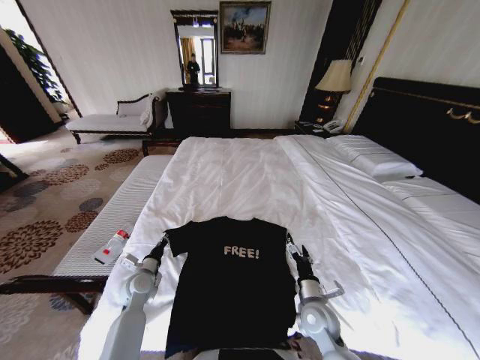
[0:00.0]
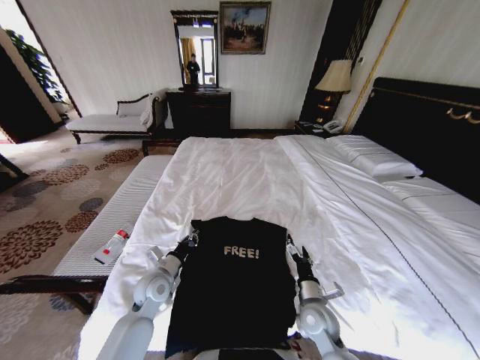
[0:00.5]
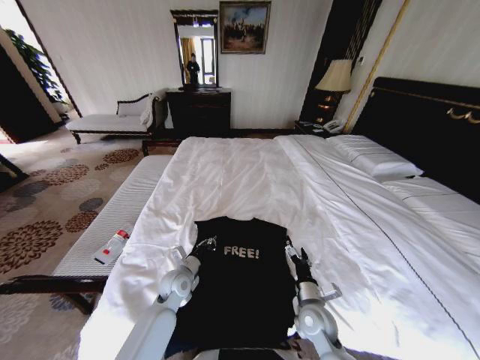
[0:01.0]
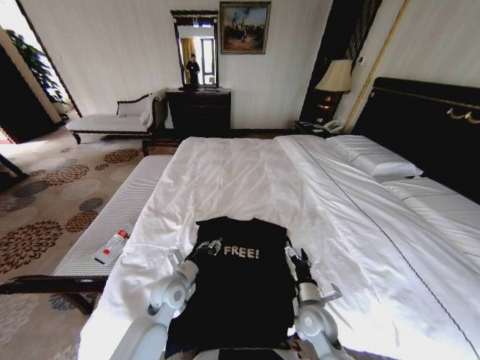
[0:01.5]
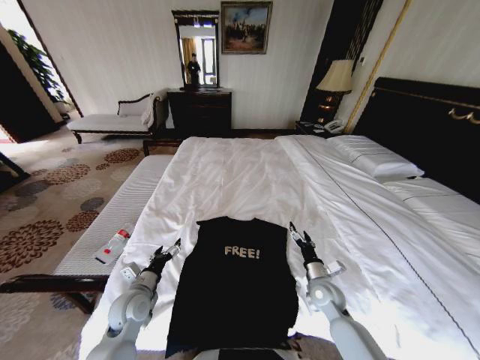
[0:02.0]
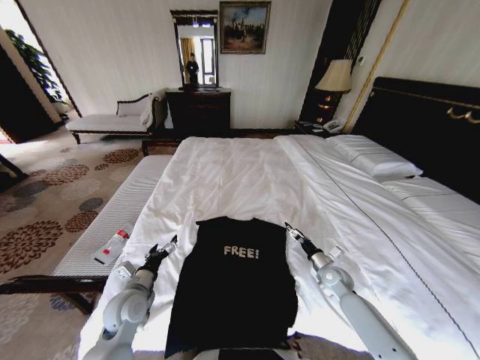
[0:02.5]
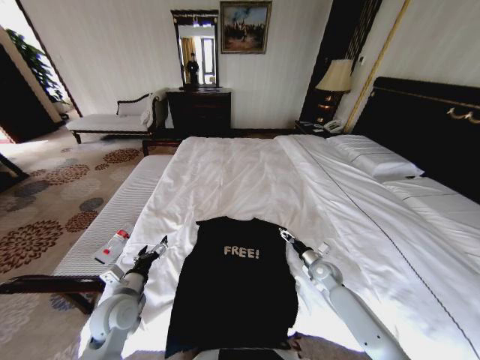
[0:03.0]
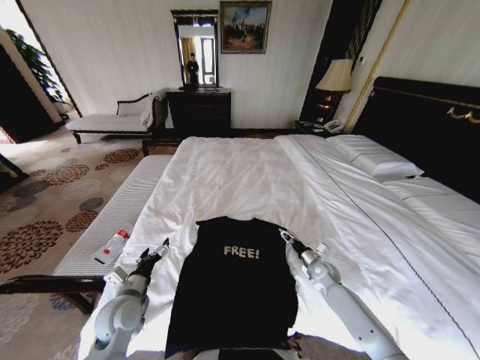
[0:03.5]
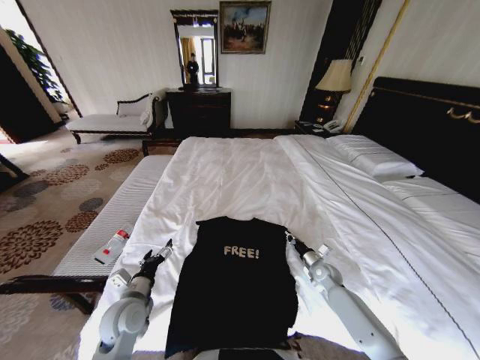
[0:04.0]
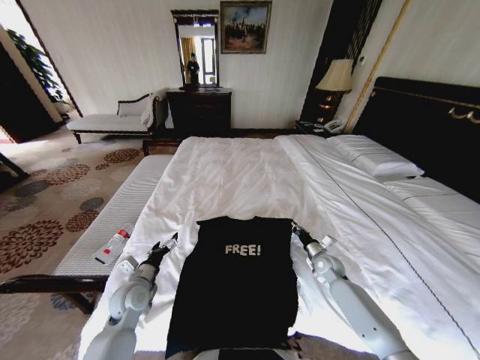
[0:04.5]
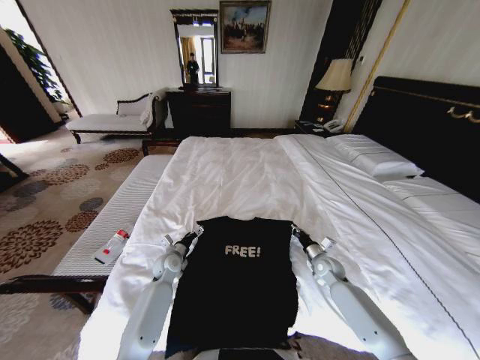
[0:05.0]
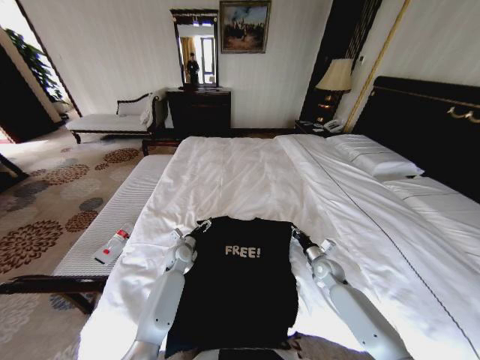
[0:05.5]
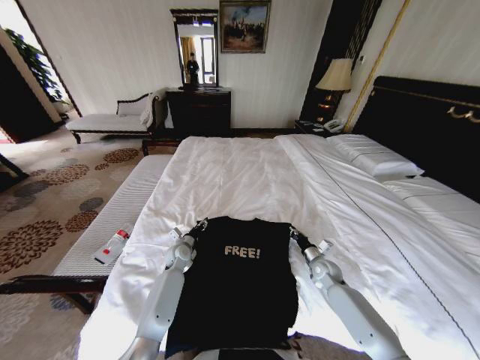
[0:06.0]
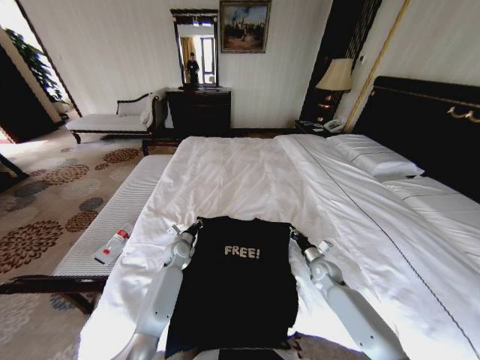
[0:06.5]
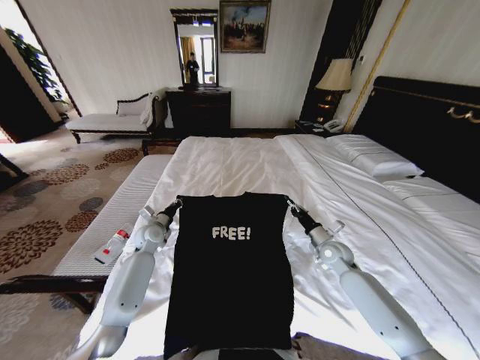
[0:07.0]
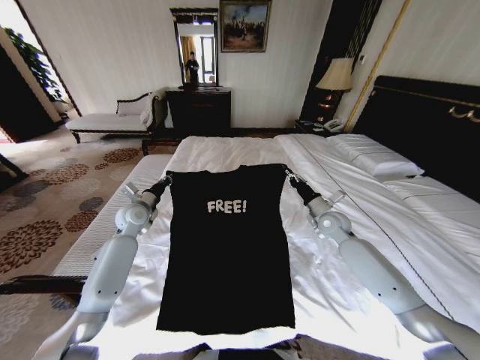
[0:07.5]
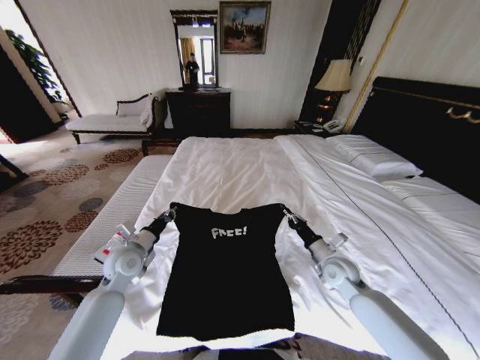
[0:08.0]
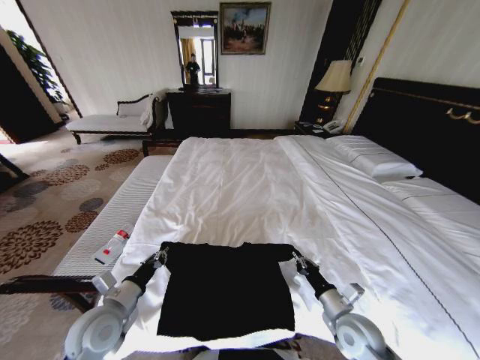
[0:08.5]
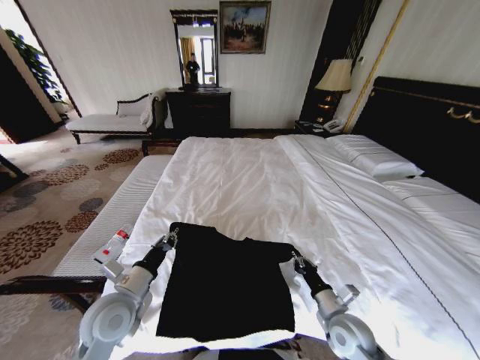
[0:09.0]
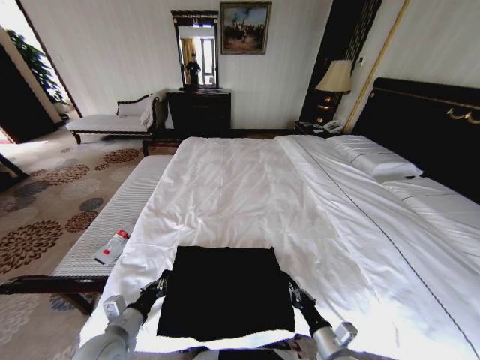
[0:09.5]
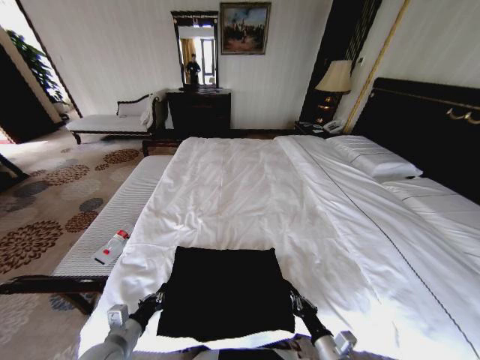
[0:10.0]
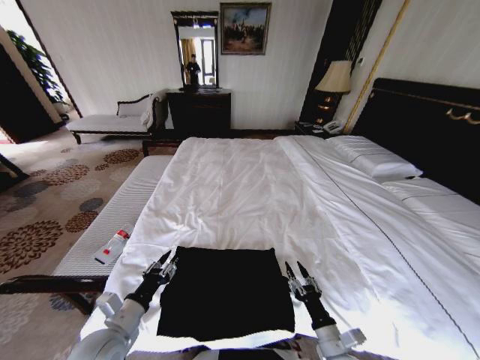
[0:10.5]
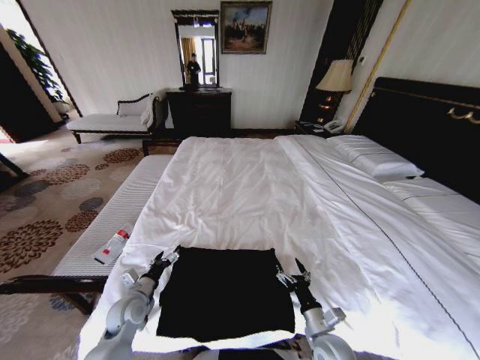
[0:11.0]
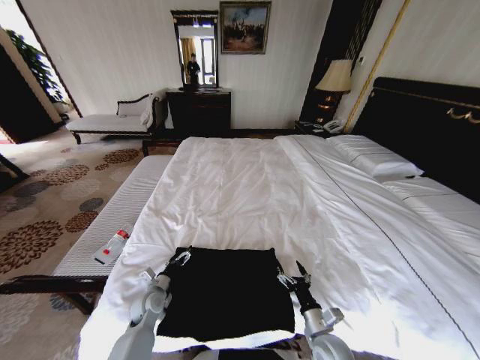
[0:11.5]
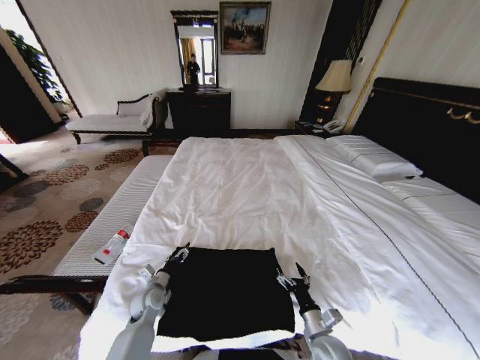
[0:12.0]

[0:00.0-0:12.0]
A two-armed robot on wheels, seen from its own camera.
Task of the whole recording: Fold the clothes on the bed.
0:00.0 to 0:02.0: The right gripper shifts approximately 10 cm forward and to the right; the left gripper travels backward by roughly 5 cm, reaches approximately 15 cm to the right, then returns, and opens up.
0:02.0 to 0:04.0: The right gripper travels forward, to the right and downward by some 10 cm, and closes up.
0:04.0 to 0:06.0: The left gripper heads forward and downward, covering roughly 25 cm, and closes up.
0:06.0 to 0:08.0: The right gripper heads upward, covering approximately 10 cm. Meanwhile the left gripper shifts approximately 20 cm upward, to the left and backward, and closes.
0:08.0 to 0:10.0: Both grippers travel together backward and downward, about 25 cm.
0:10.0 to 0:12.0: The left gripper shifts some 15 cm forward and downward, and opens up. Meanwhile the right gripper is displaced forward by some 5 cm, and opens.

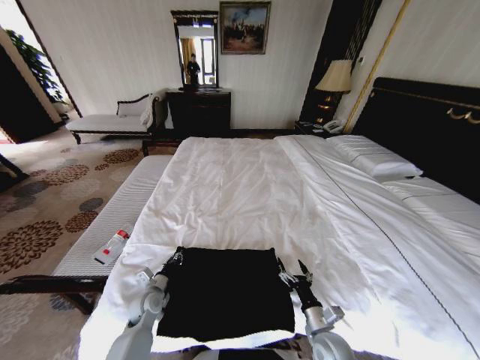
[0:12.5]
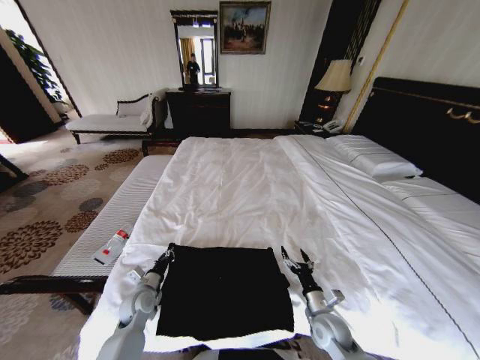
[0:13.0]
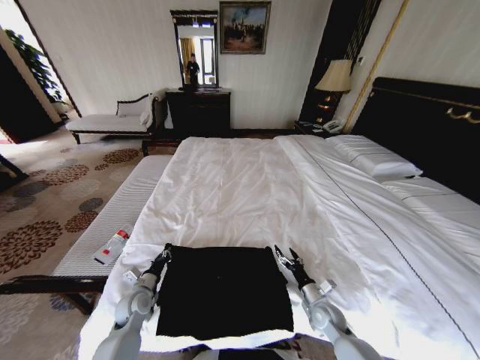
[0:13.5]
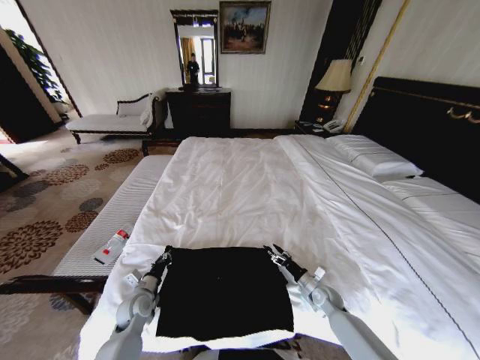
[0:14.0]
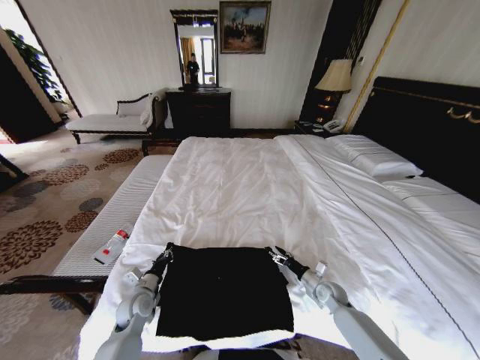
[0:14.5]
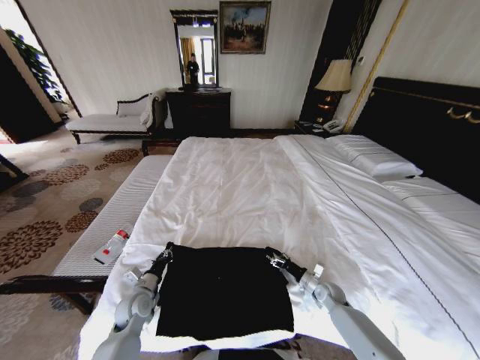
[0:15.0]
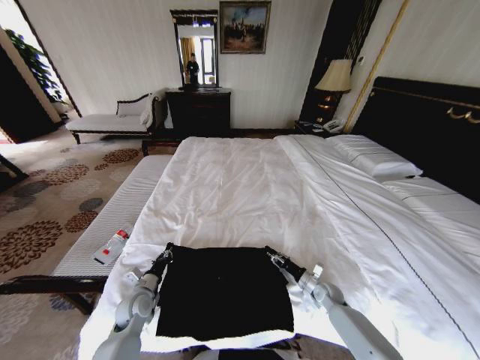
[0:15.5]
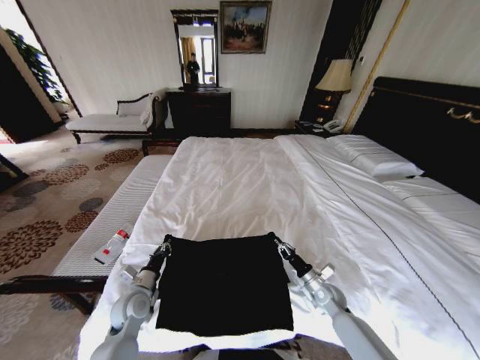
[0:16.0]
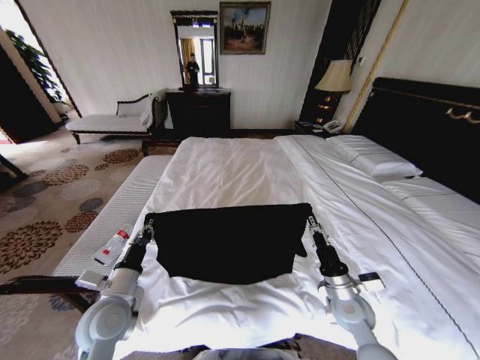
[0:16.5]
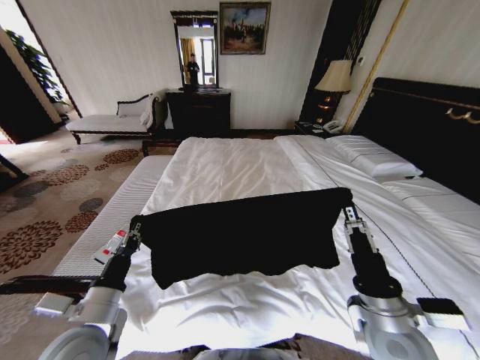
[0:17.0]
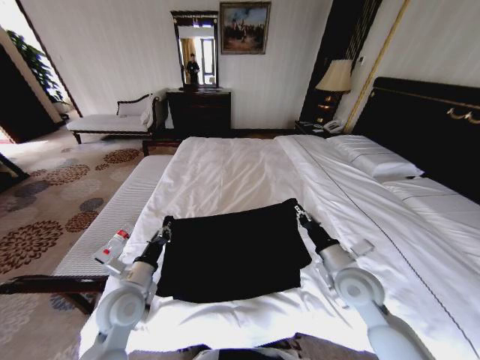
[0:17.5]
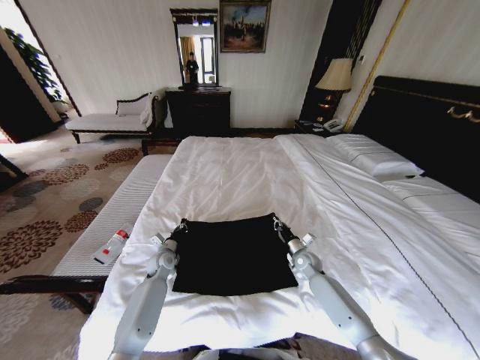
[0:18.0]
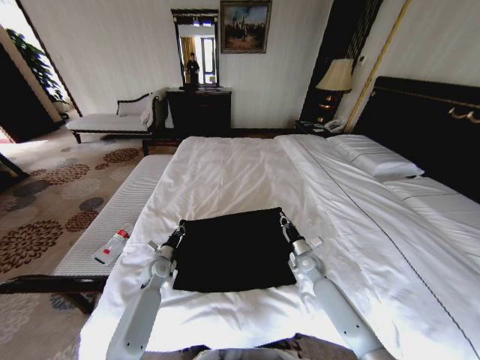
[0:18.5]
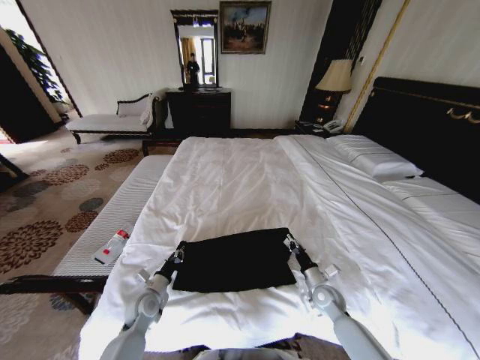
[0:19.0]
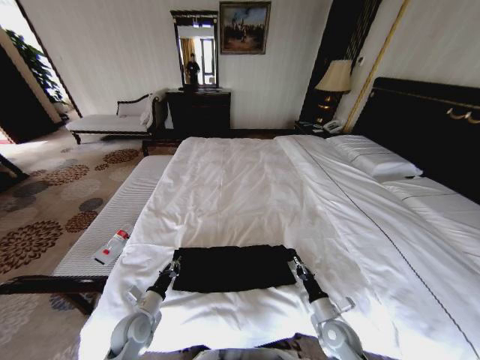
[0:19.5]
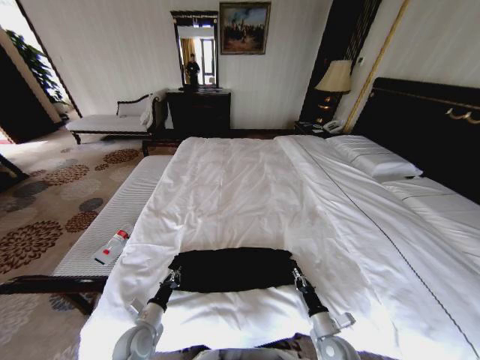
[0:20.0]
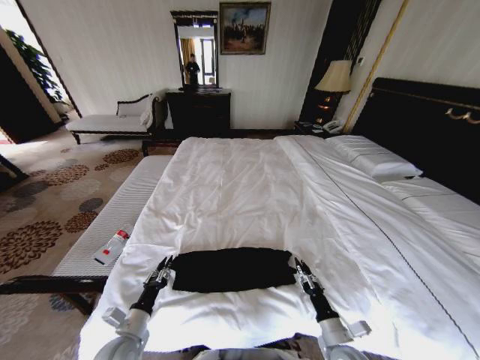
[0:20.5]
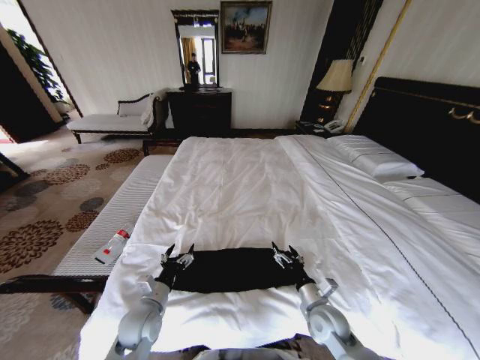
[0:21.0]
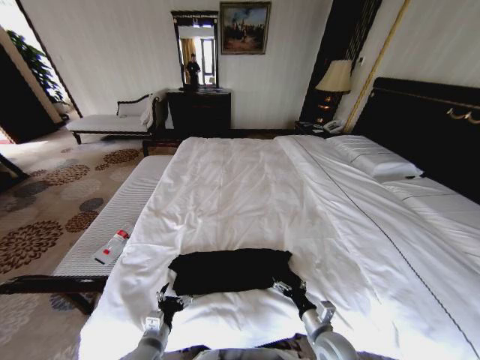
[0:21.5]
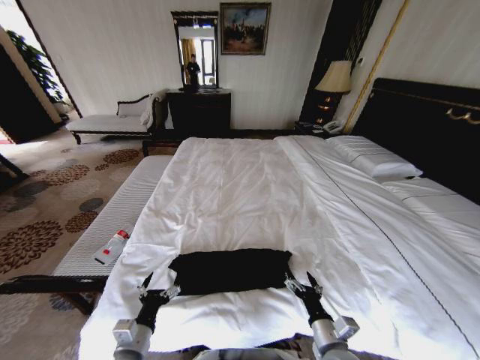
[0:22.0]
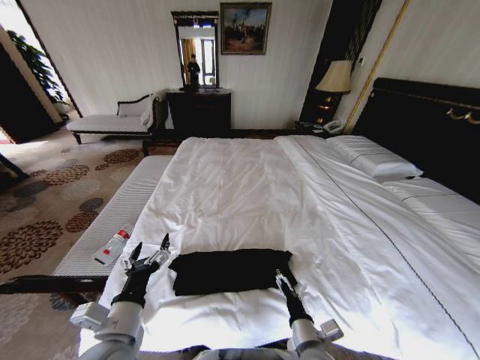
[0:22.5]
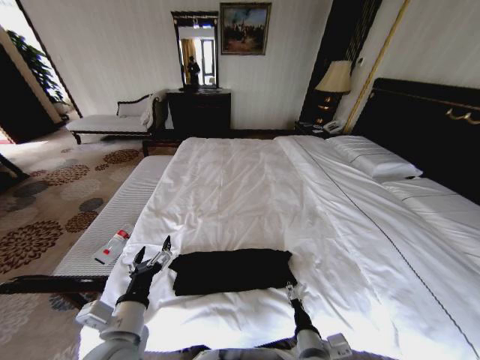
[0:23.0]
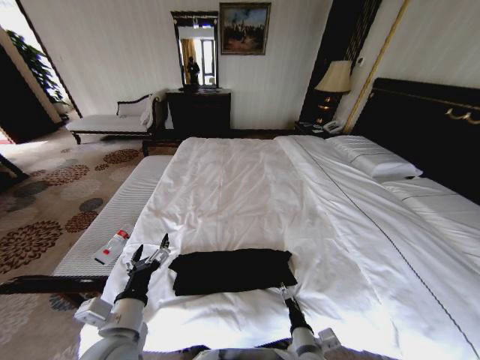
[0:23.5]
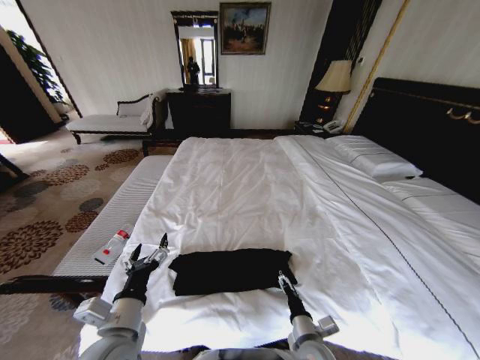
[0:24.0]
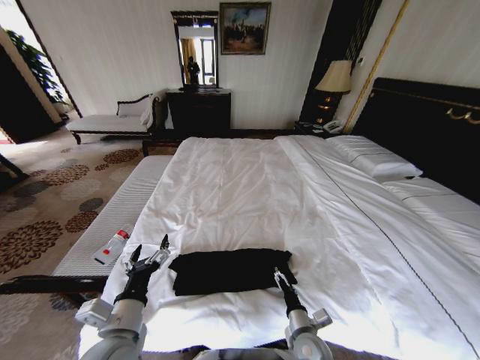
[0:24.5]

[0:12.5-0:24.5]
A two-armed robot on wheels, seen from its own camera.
Task of the whole recording: Fold the clothes on the bed.
0:12.5 to 0:14.5: The right gripper heads forward and to the right, covering approximately 20 cm.
0:14.5 to 0:16.5: The right gripper travels upward, backward and to the left by roughly 20 cm, and closes its fingers; the left gripper heads upward, covering some 15 cm.
0:16.5 to 0:18.5: The two grippers go about 20 cm forward and downward.
0:18.5 to 0:20.5: Both grippers move backward, some 25 cm. The right gripper opens its fingers.
0:20.5 to 0:22.5: The right gripper moves to the left and upward, some 10 cm, and opens its fingers, while the left gripper travels upward and to the right by some 15 cm, and opens.
0:22.5 to 0:24.5: The right gripper goes some 5 cm downward.

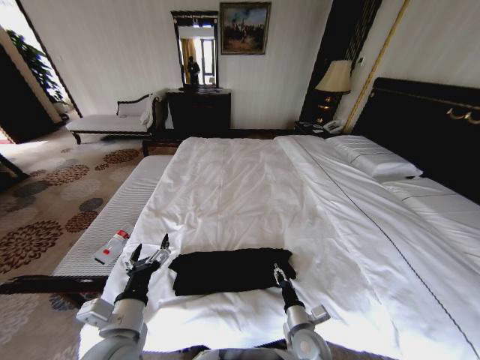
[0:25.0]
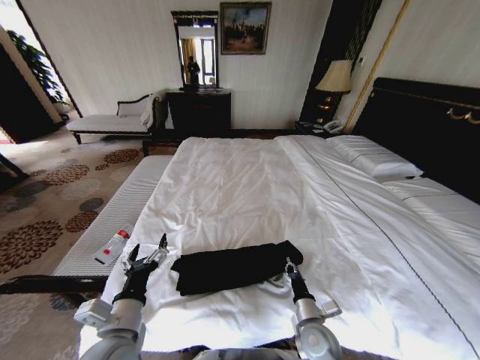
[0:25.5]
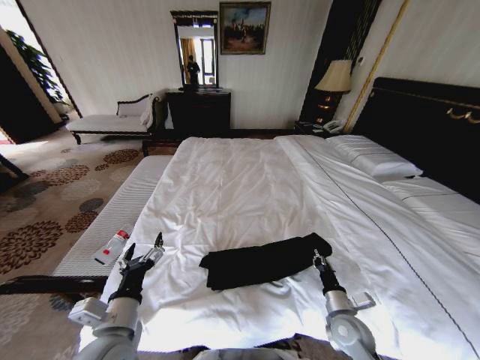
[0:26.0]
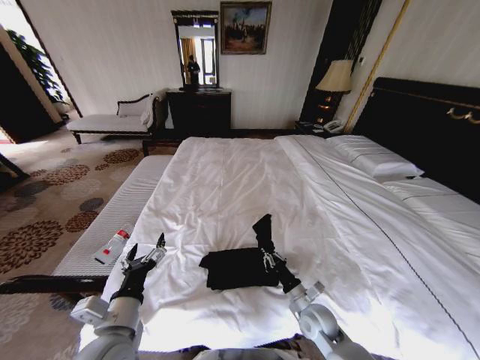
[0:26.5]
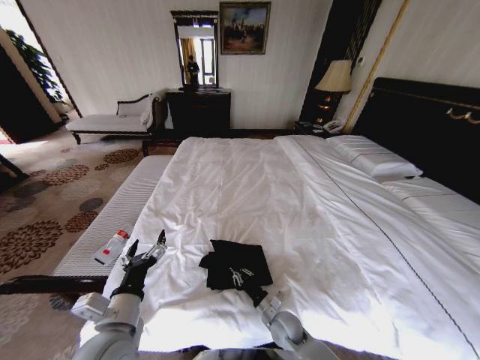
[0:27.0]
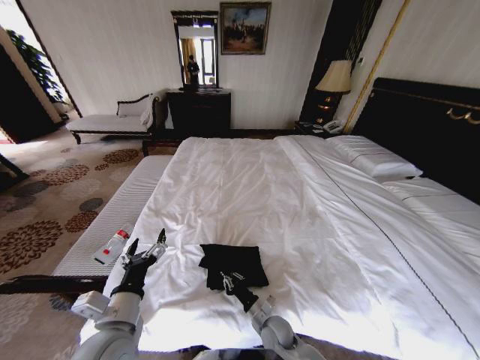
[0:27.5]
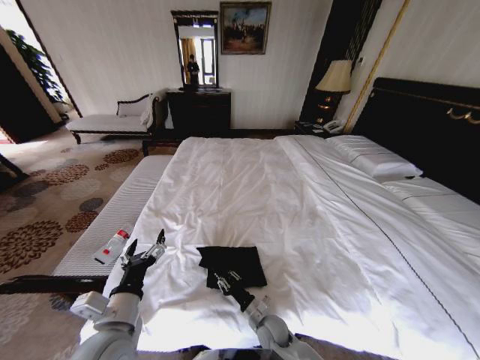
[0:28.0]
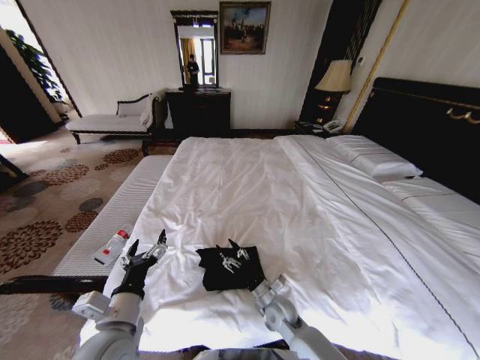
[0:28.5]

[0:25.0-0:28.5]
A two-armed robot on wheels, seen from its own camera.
Task of the whole recording: Fold the clothes on the bed.
0:25.0 to 0:27.0: The right gripper heads downward and forward, covering roughly 10 cm, travels to the right and back again, roughly 10 cm each way, and closes.
0:27.0 to 0:28.5: The right gripper moves roughly 5 cm, and opens up.
